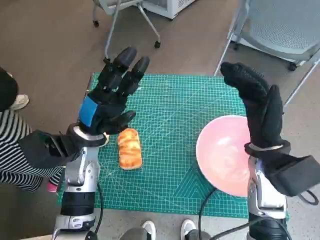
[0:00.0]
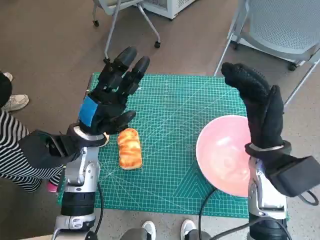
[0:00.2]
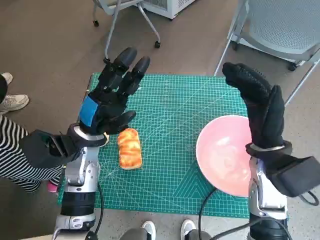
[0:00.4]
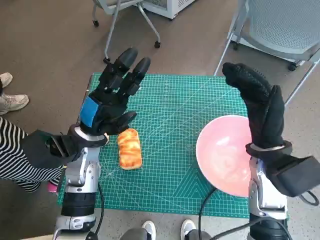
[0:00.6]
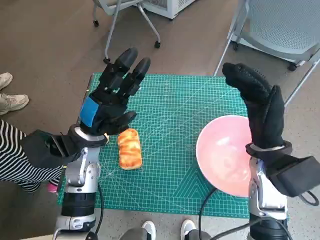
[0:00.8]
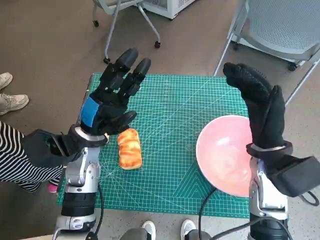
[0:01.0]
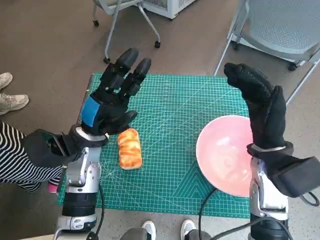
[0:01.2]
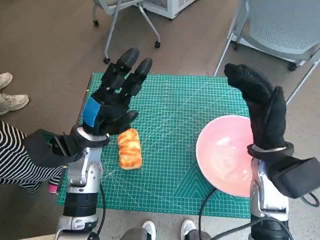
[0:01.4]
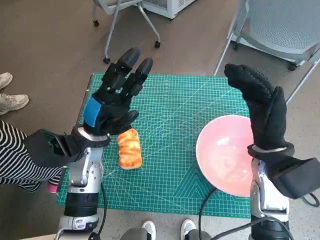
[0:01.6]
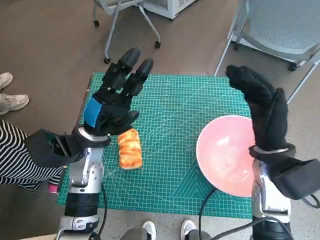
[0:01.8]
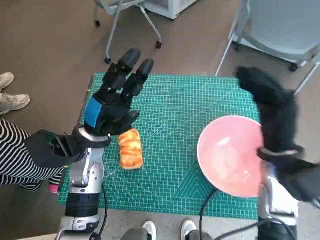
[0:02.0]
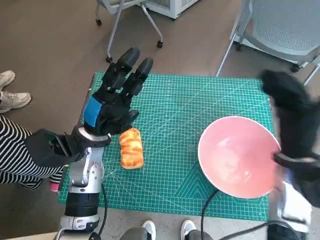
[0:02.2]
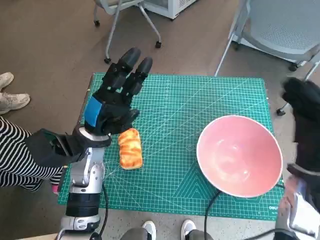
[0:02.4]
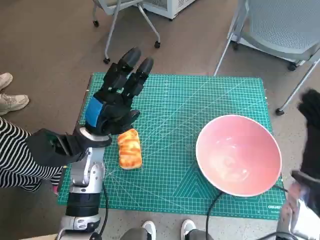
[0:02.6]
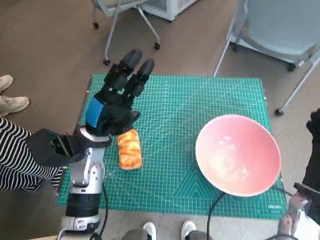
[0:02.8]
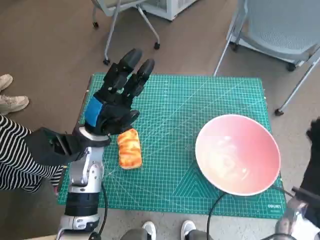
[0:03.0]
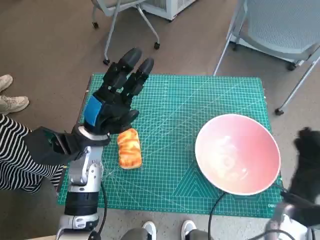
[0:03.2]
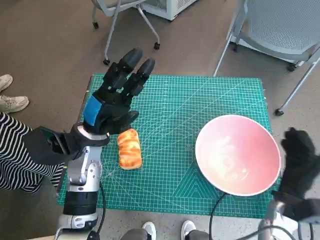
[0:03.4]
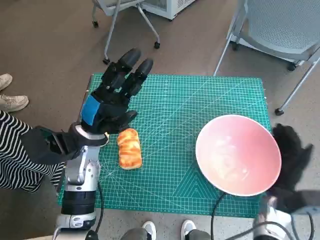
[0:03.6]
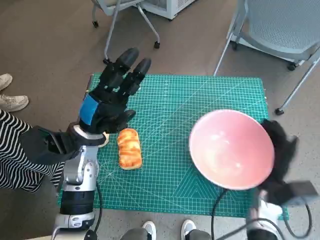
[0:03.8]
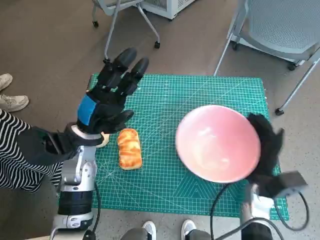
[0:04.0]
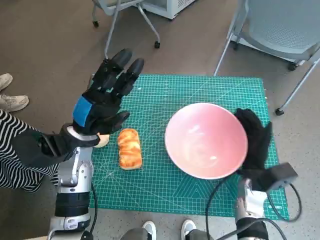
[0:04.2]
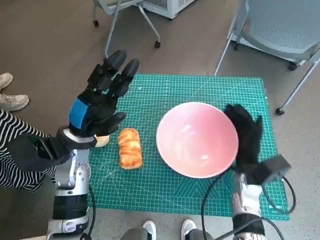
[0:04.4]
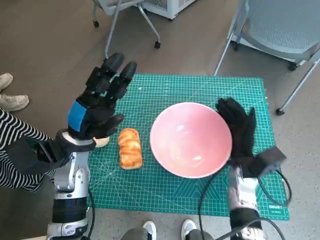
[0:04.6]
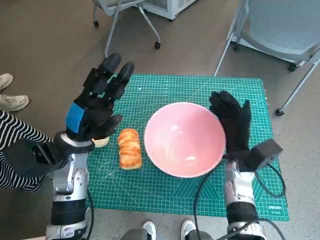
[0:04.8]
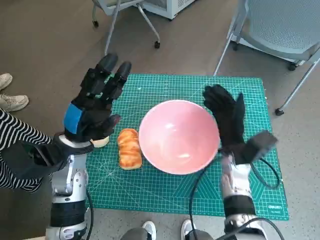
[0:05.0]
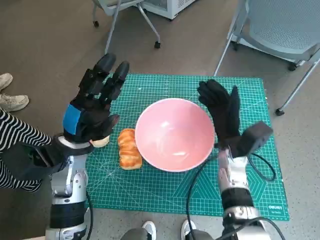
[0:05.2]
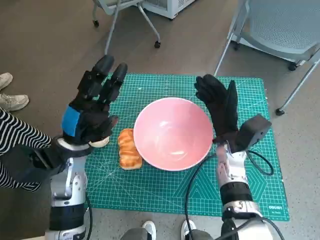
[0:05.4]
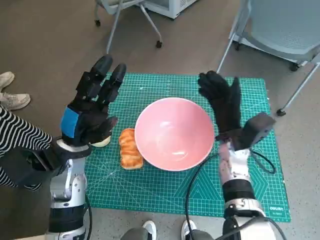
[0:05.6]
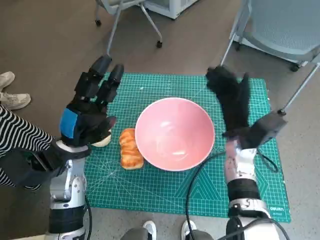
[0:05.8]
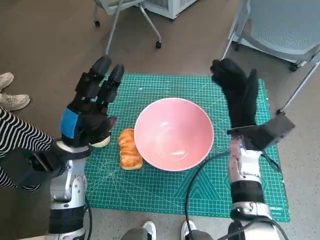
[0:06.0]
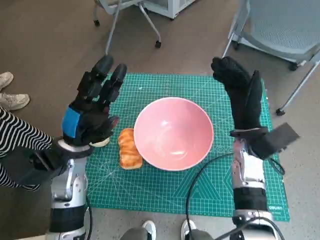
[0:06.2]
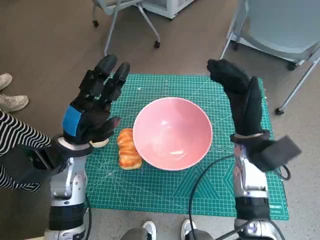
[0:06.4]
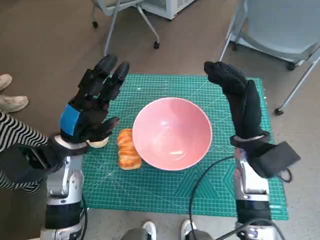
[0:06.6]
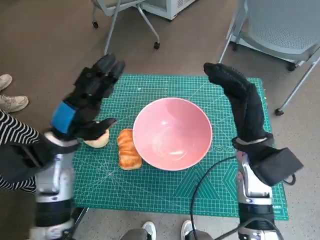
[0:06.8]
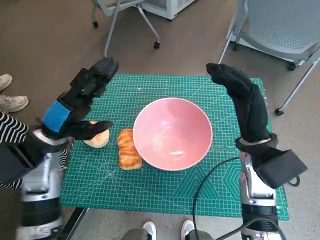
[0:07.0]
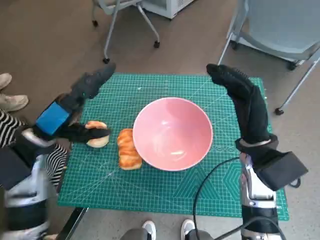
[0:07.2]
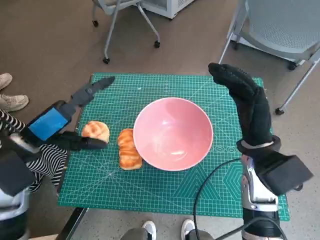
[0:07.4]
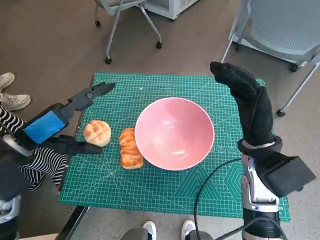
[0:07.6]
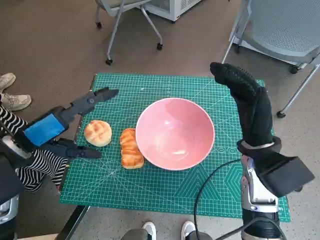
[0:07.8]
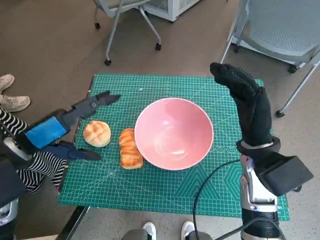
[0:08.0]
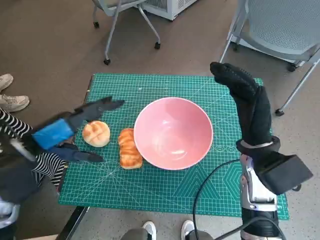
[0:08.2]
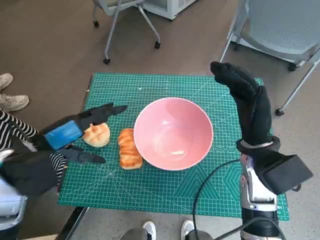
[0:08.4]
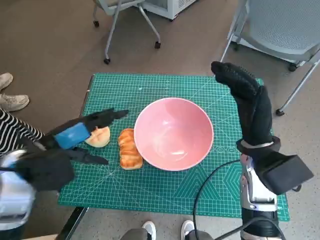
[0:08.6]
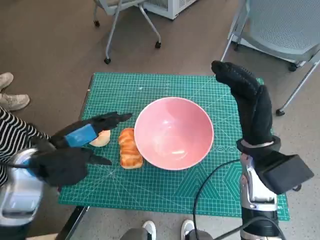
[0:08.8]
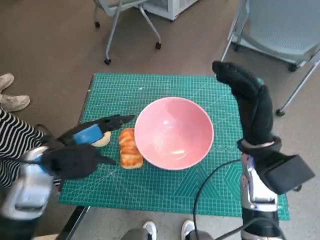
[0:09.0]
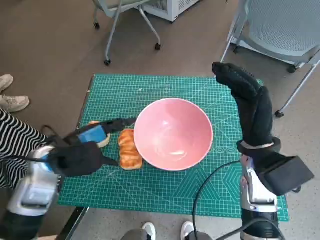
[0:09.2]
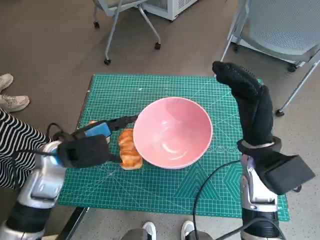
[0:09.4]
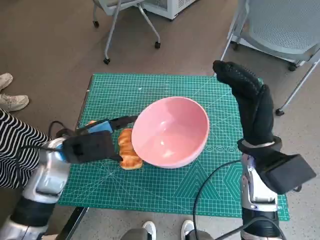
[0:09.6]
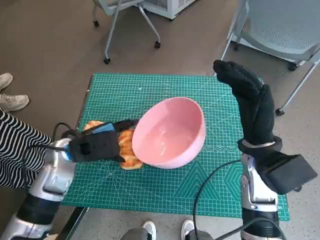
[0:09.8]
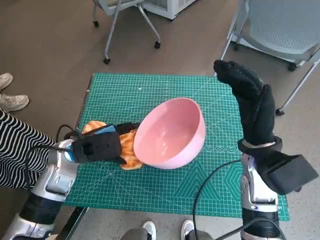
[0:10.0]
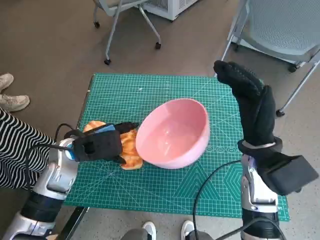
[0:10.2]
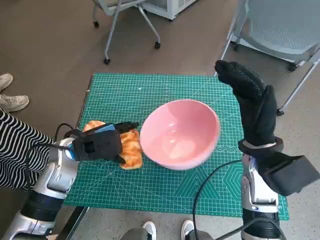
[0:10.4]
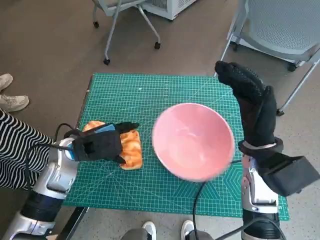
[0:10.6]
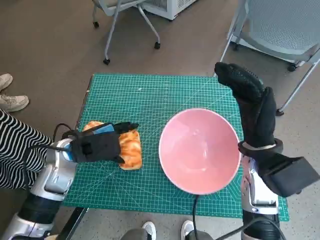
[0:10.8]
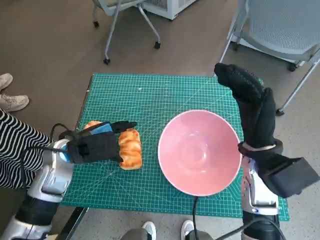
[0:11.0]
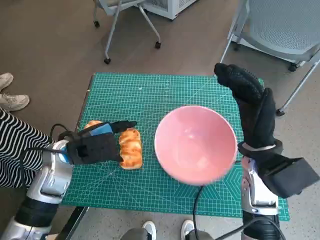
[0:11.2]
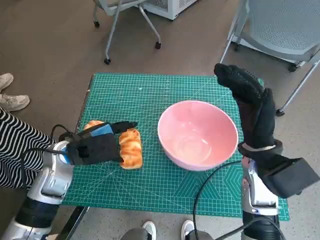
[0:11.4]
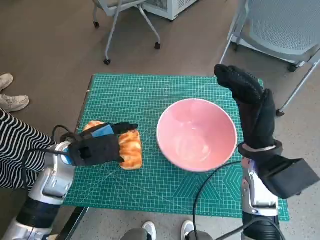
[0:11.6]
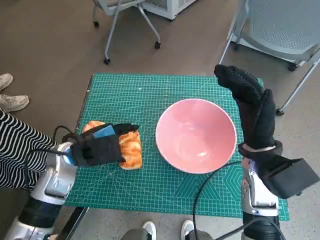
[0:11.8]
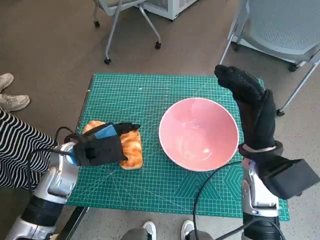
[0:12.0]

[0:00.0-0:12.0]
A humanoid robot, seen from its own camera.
Task of the whole recording: Push the bowl into the center of the table and put the bread into the bowl.
Step, 0:00.0 to 0:05.8: Move the pink bowl to the center of table with right hand.
0:01.6 to 0:03.0: The right hand travels downward, to the right and backward by approximately 15 cm.
0:03.0 to 0:04.4: The right hand heads to the left and forward, covering some 10 cm.
0:04.4 to 0:06.0: The right hand goes approximately 10 cm upward and forward.
0:06.0 to 0:07.6: The left hand shifts some 10 cm upward and to the left. Meanwhile the right hand shifts some 5 cm backward.
0:07.6 to 0:09.0: The left hand shifts by roughly 5 cm.
0:09.0 to 0:10.4: The left hand shifts by about 5 cm.
0:10.4 to 0:12.0: Neither hand changes place.

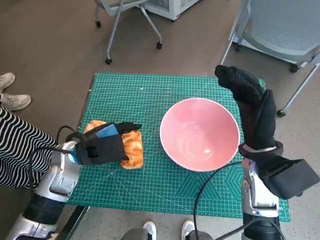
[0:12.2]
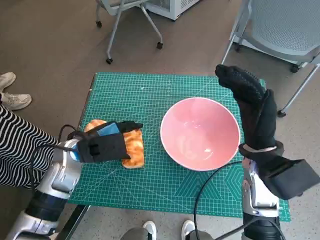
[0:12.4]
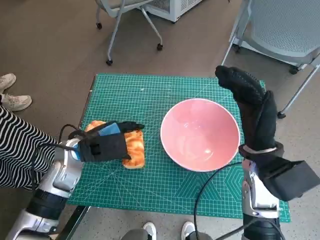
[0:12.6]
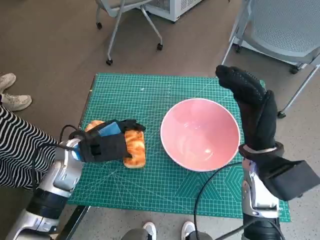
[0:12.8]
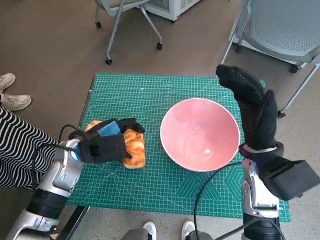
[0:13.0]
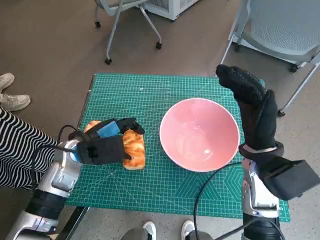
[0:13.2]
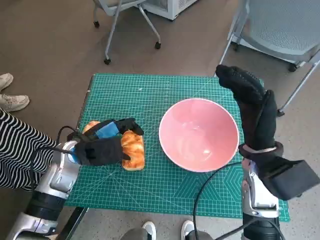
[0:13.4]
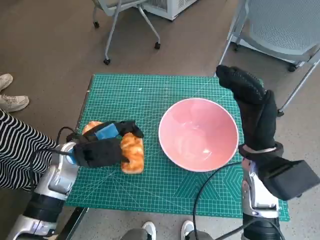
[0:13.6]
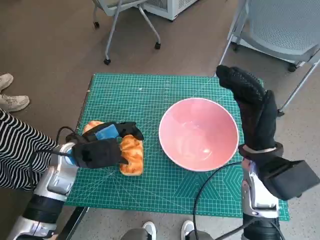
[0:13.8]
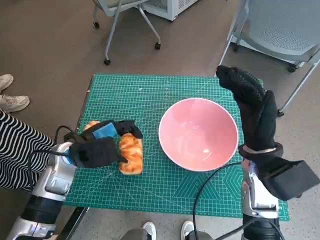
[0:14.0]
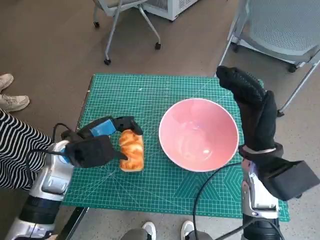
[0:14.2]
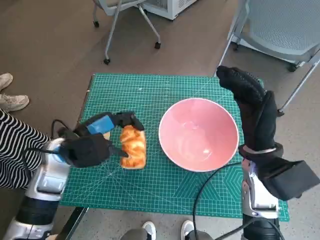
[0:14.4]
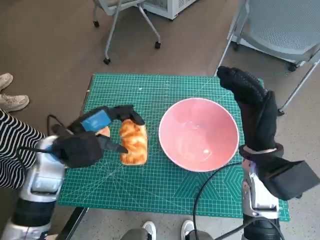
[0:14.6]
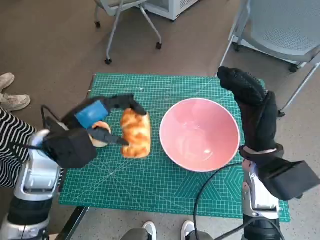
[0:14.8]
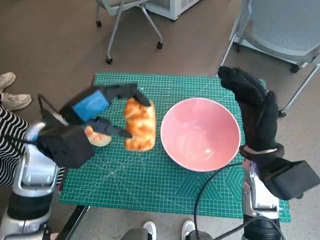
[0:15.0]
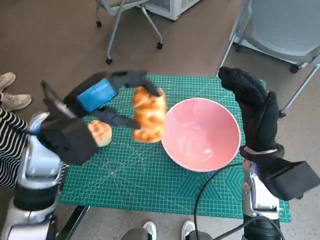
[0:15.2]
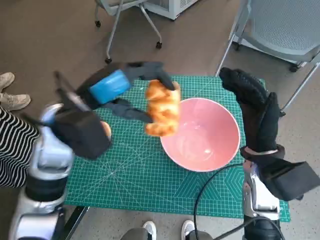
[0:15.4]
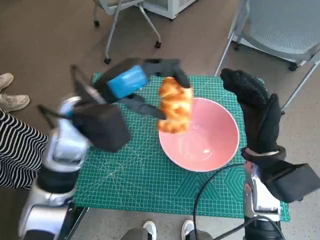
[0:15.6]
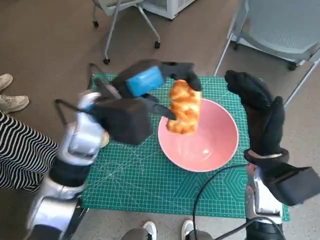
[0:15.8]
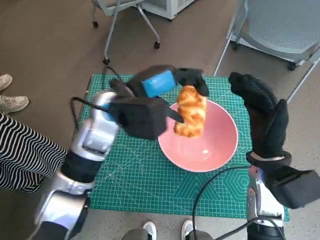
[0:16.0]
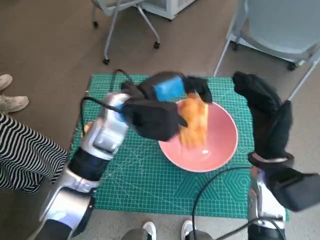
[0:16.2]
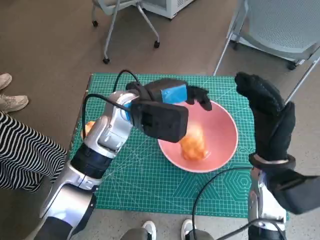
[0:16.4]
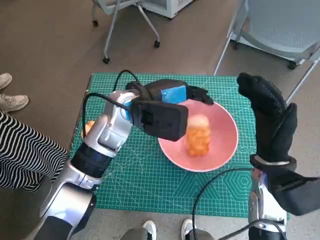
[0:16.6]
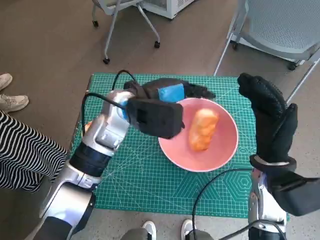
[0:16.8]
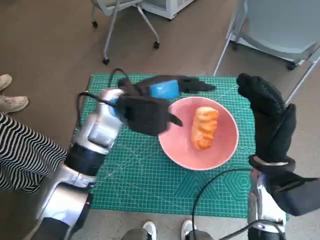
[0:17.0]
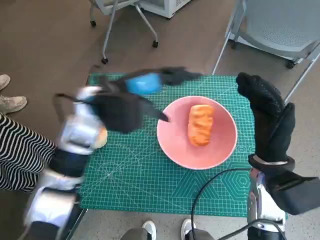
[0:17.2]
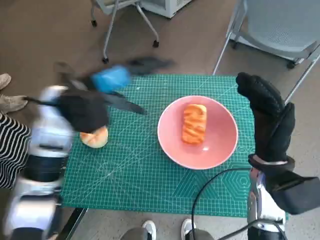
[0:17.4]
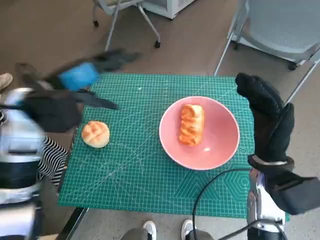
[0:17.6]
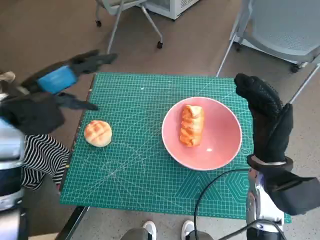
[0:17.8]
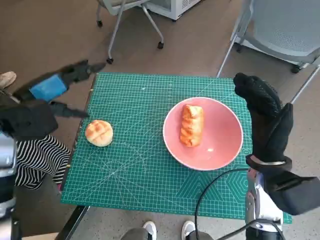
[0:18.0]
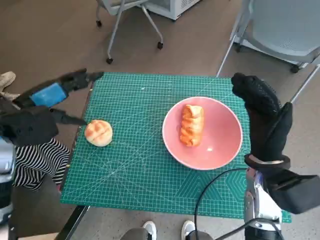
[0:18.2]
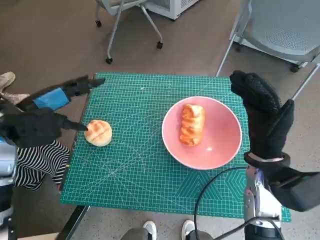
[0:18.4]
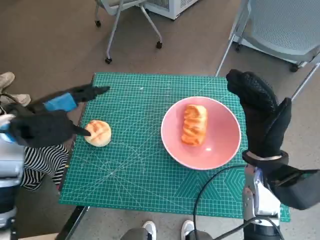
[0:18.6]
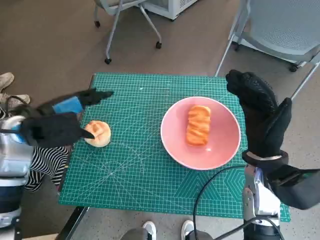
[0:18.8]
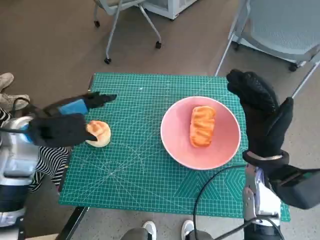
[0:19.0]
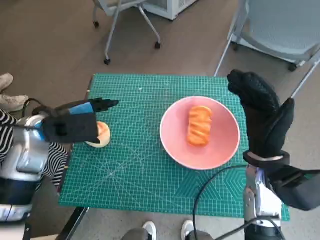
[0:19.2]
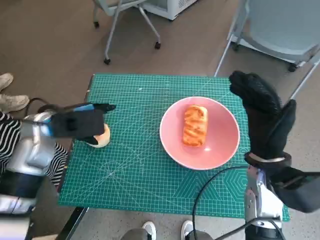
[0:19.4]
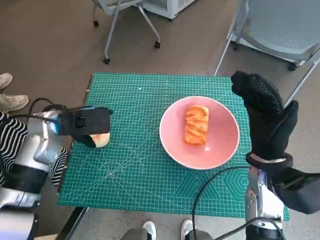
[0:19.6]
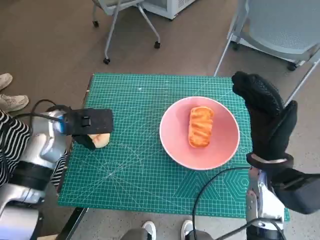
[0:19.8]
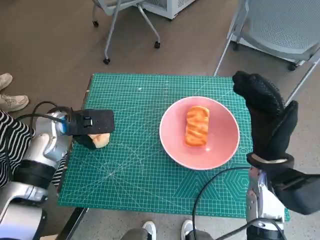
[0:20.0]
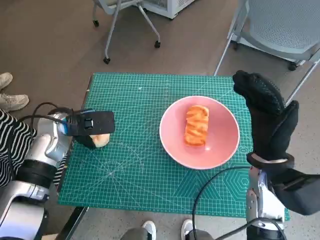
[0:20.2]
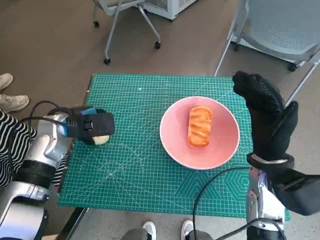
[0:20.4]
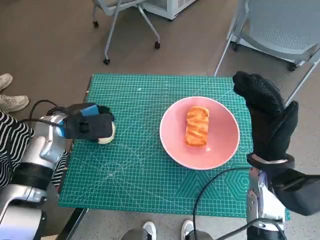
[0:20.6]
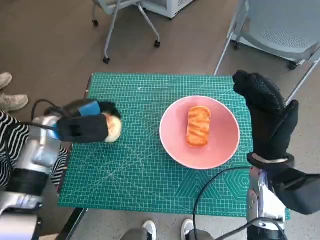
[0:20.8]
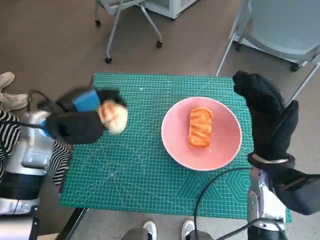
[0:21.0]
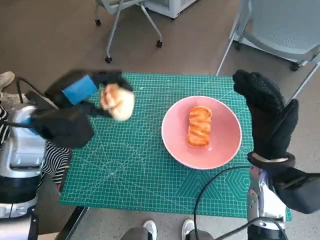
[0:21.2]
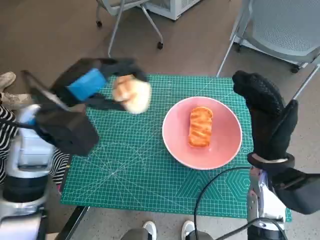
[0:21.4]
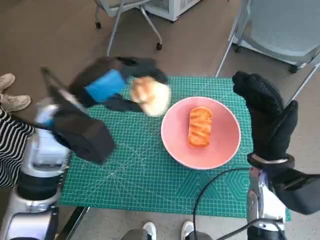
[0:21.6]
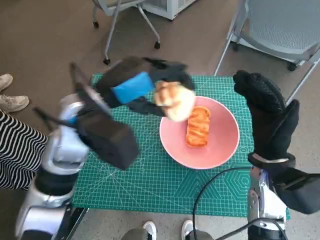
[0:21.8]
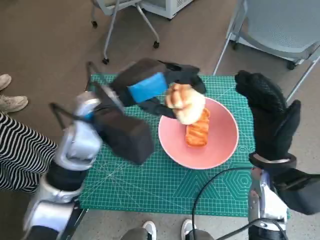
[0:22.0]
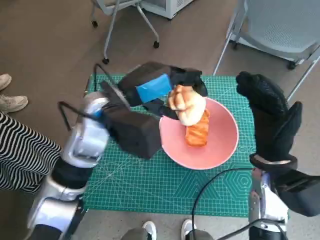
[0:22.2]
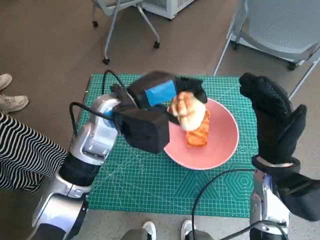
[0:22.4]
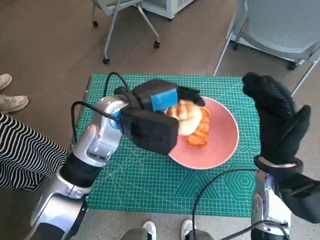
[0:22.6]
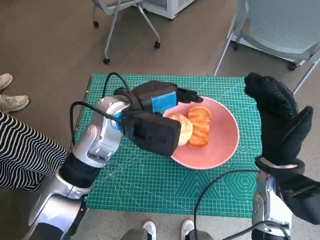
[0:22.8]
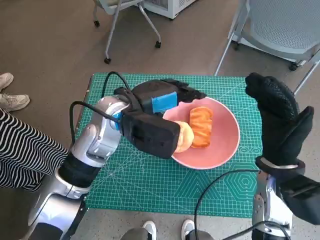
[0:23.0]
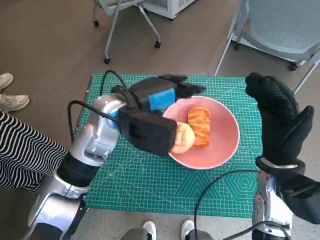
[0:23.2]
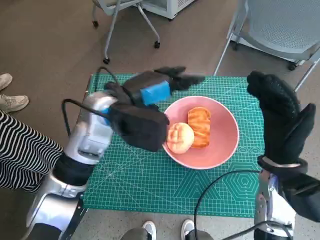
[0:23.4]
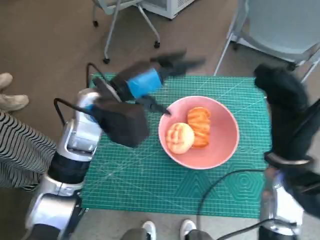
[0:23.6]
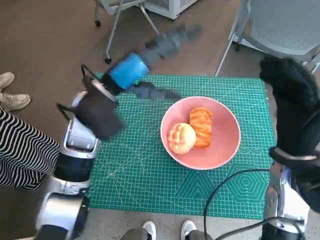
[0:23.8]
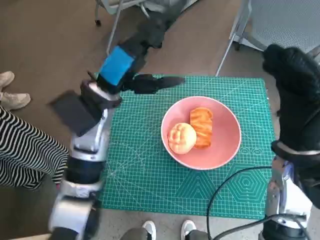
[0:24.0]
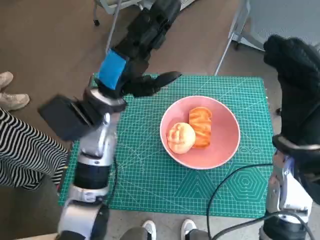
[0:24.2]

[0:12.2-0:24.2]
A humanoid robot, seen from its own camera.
Task of the whole recording: Push the bowl into the center of the table and put the bread into the bowl.
Step, 0:13.4 to 0:16.6: Place the long bread in pink bowl with left hand.
Step, 0:16.8 to 0:20.2: Grasp the round bread with left hand.
Step, 0:20.4 to 0:23.4: Place the round bread in pink bowl with left hand.
0:12.2 to 0:13.8: The hands make only small movements.
0:13.8 to 0:15.2: The left hand travels upward by some 10 cm.
0:15.2 to 0:16.6: The left hand shifts about 15 cm to the right and forward.
0:16.6 to 0:18.2: The left hand is displaced to the left by some 20 cm.
0:18.2 to 0:19.8: The left hand heads downward, covering some 5 cm.
0:19.8 to 0:21.2: The left hand travels upward by about 5 cm.
0:21.2 to 0:22.6: The left hand moves to the right, approximately 15 cm.
0:22.6 to 0:24.2: The right hand travels upward by roughly 5 cm.
